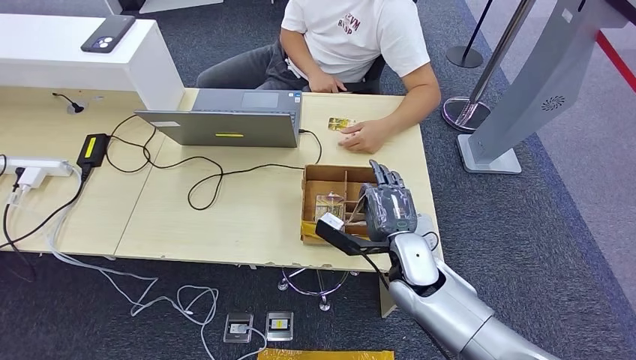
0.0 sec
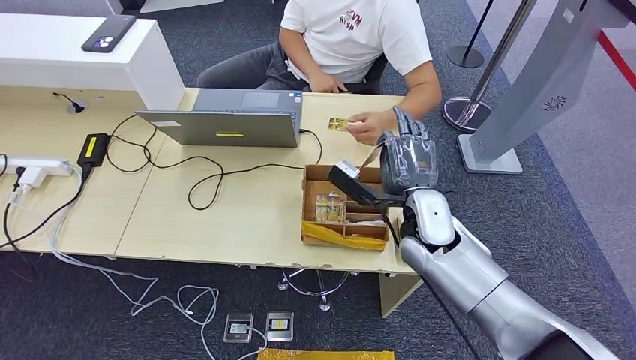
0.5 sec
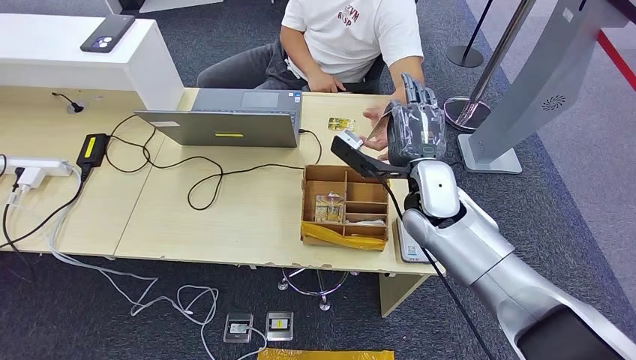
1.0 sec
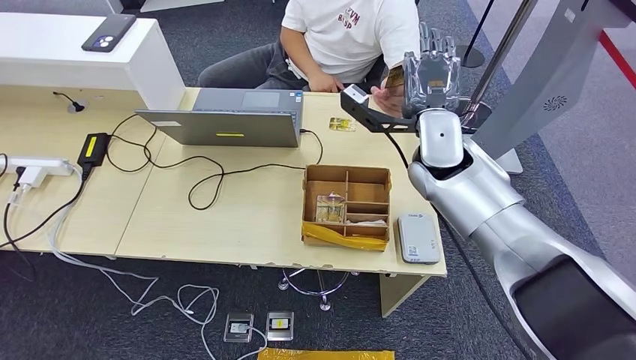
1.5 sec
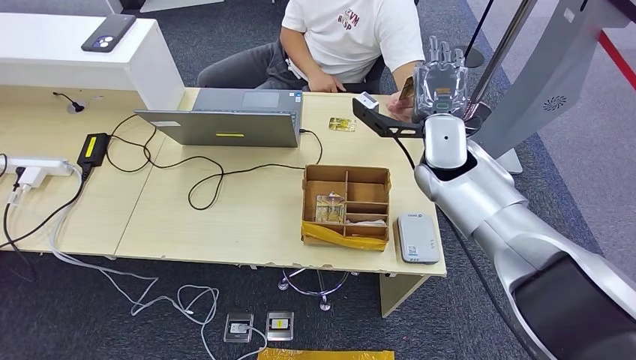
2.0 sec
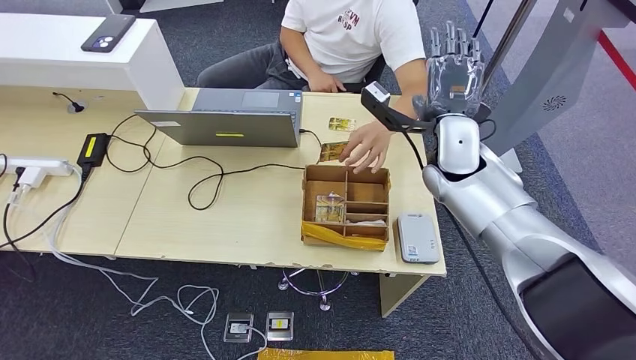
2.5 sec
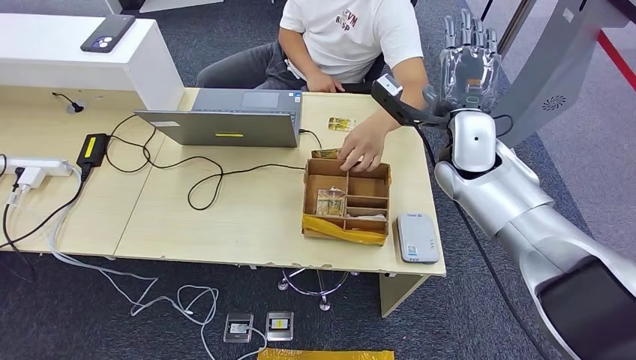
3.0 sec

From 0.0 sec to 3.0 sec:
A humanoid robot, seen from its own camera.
Step, from 0.0 sec to 3.0 sec: Hand the room key to the person.
From 1.5 sec to 3.0 sec: The hands stay close to where they were, moving slightly.
